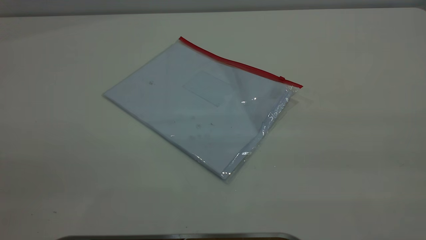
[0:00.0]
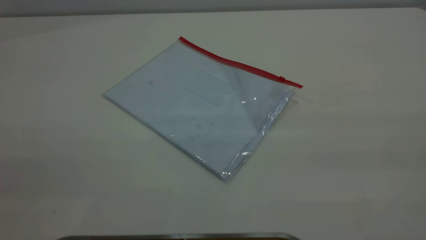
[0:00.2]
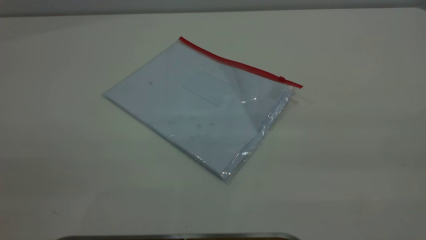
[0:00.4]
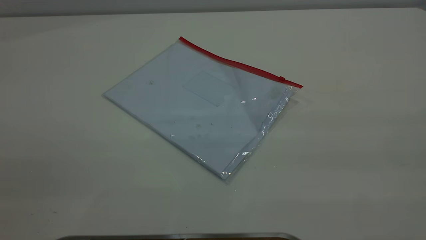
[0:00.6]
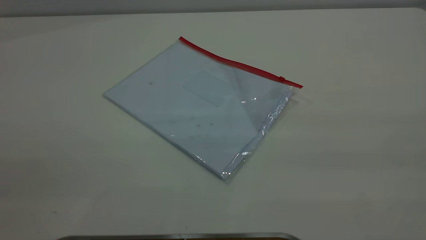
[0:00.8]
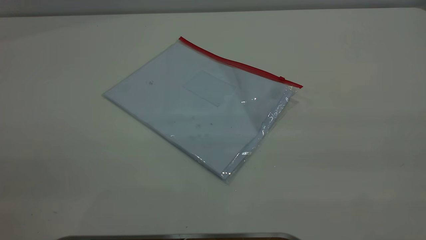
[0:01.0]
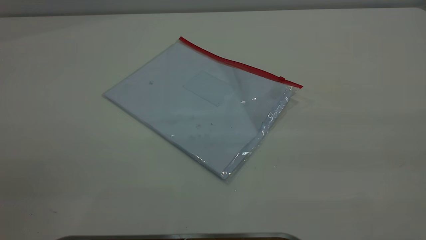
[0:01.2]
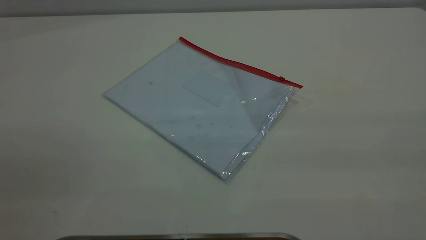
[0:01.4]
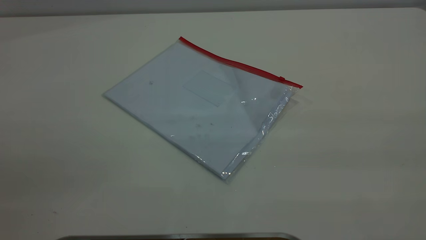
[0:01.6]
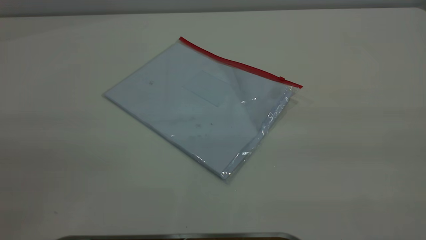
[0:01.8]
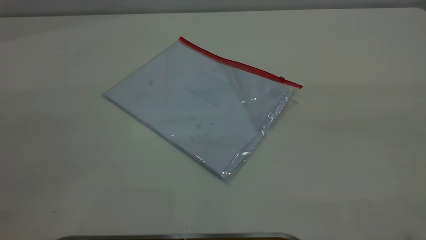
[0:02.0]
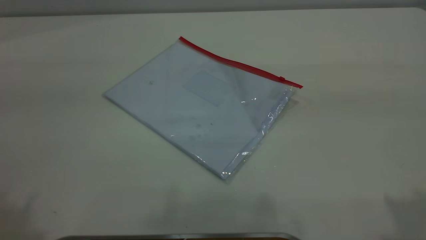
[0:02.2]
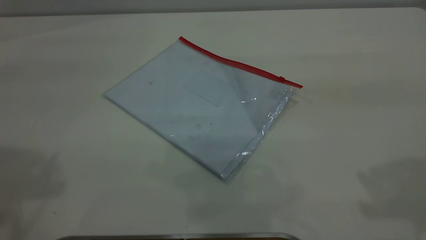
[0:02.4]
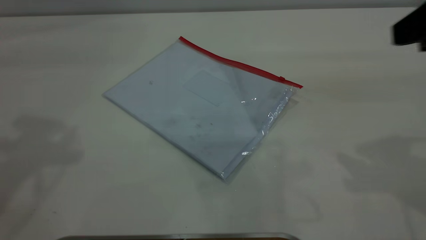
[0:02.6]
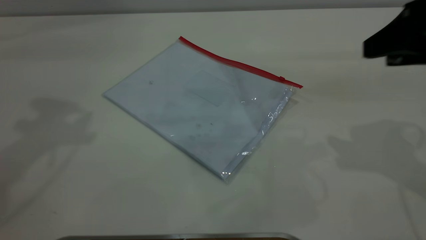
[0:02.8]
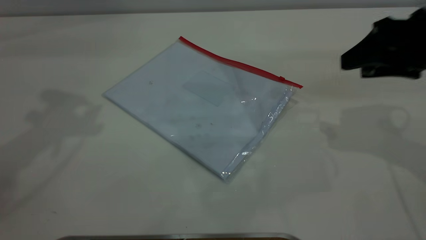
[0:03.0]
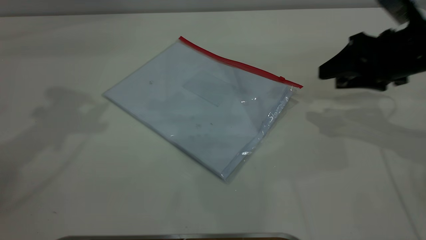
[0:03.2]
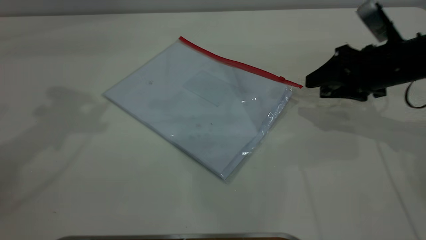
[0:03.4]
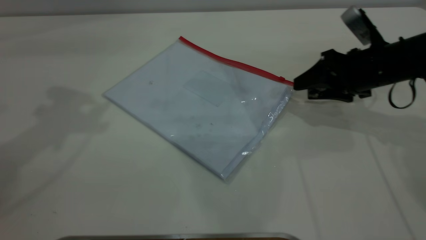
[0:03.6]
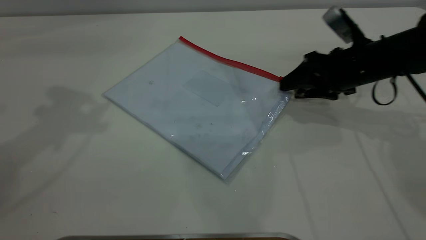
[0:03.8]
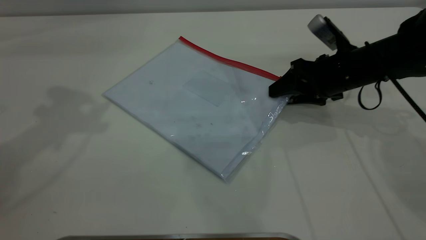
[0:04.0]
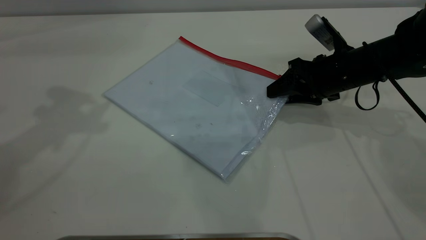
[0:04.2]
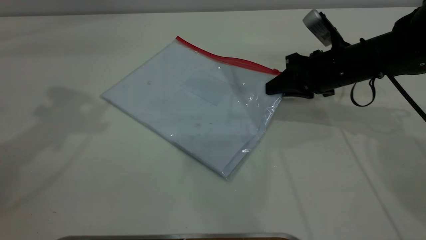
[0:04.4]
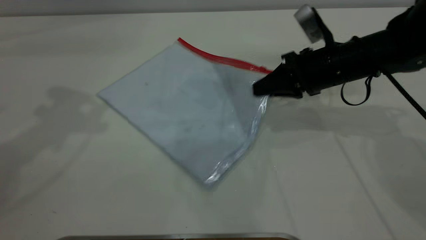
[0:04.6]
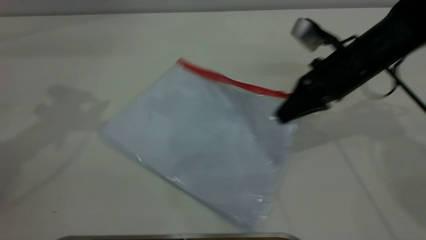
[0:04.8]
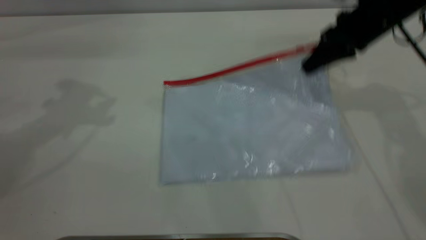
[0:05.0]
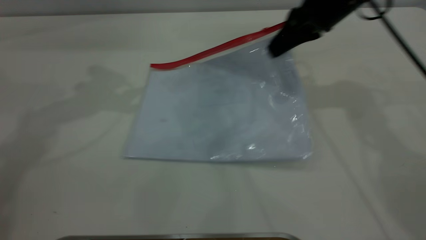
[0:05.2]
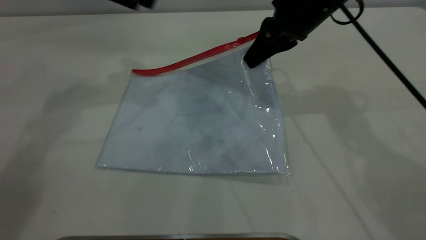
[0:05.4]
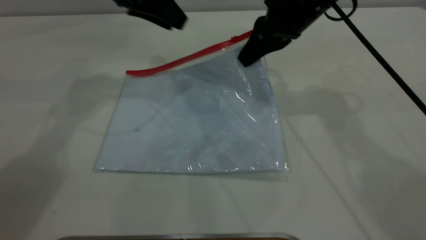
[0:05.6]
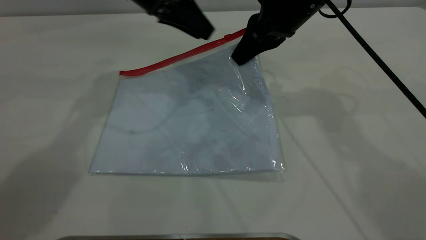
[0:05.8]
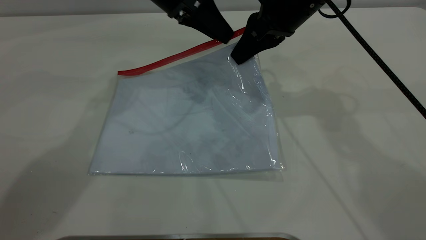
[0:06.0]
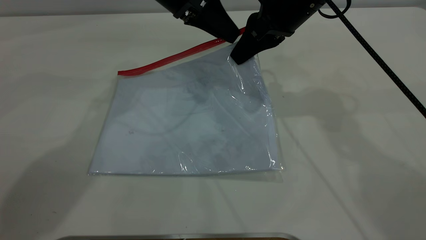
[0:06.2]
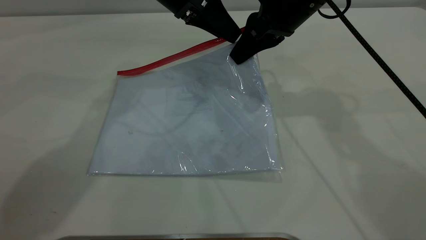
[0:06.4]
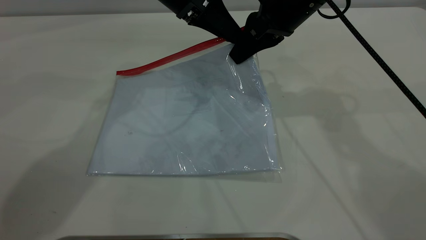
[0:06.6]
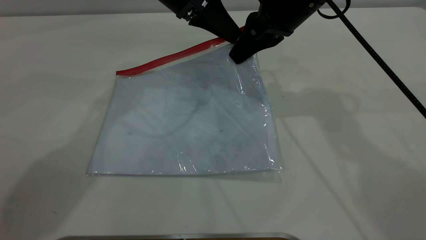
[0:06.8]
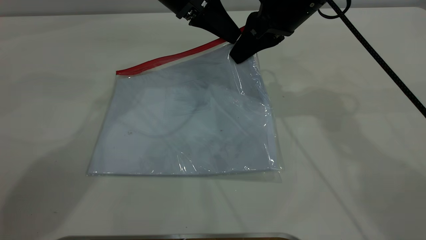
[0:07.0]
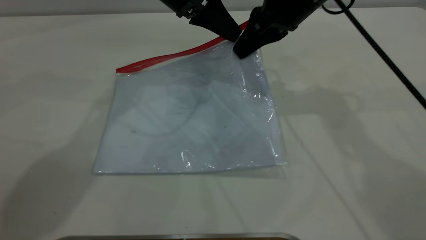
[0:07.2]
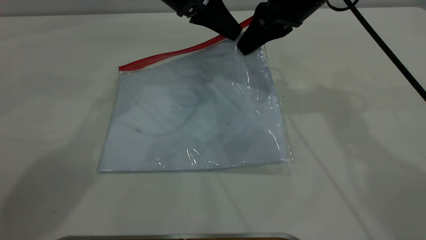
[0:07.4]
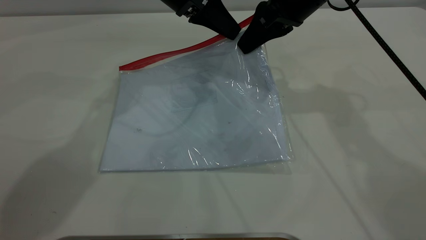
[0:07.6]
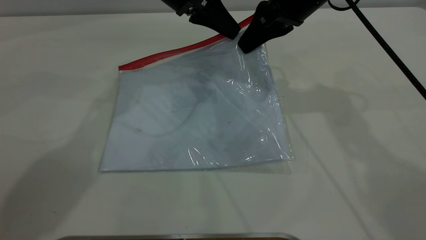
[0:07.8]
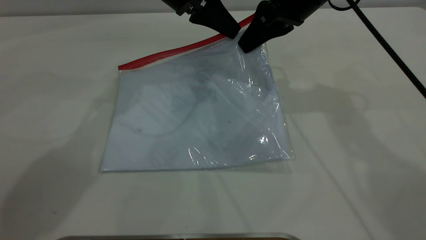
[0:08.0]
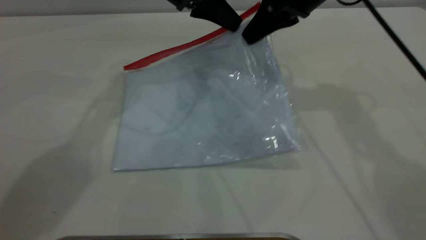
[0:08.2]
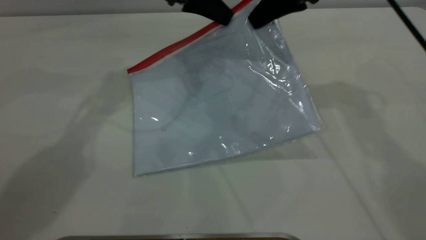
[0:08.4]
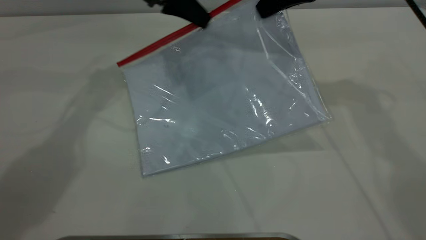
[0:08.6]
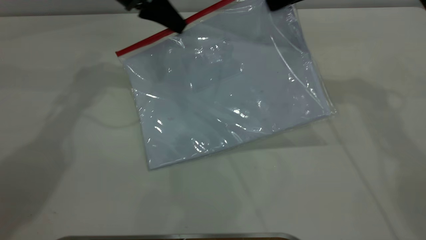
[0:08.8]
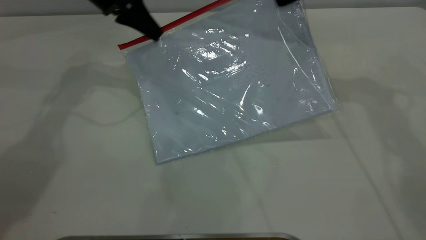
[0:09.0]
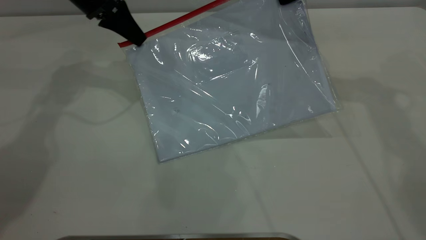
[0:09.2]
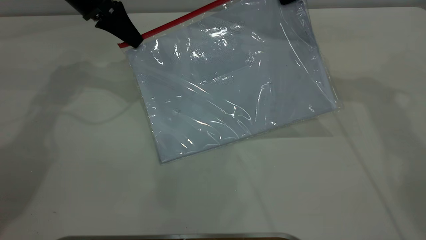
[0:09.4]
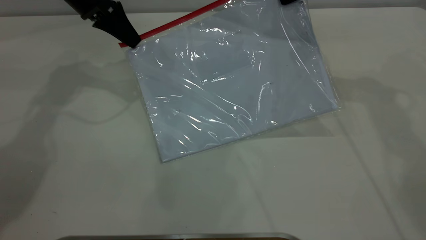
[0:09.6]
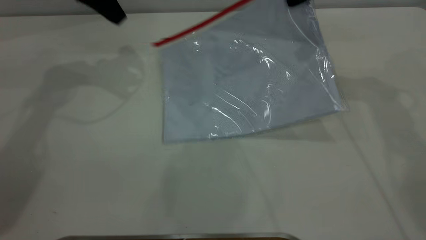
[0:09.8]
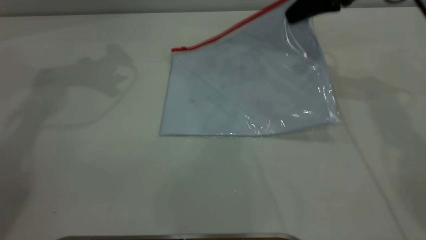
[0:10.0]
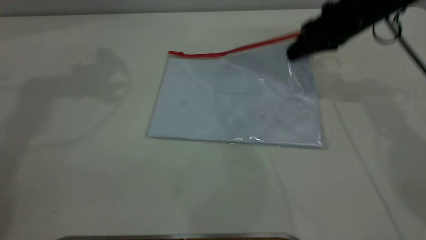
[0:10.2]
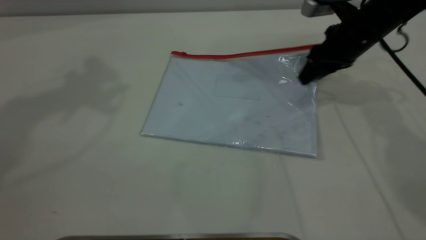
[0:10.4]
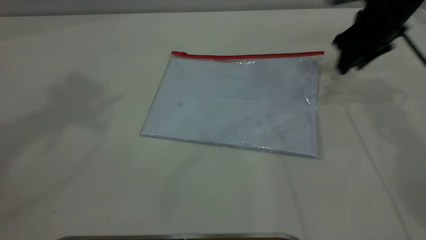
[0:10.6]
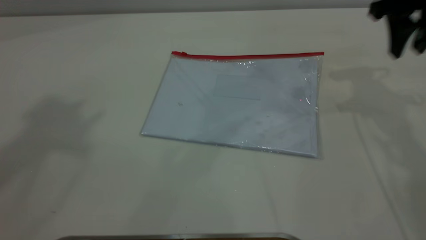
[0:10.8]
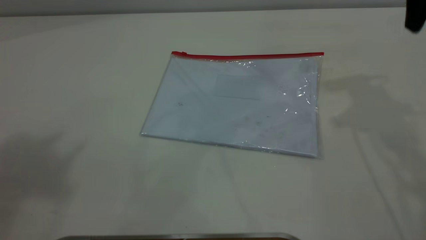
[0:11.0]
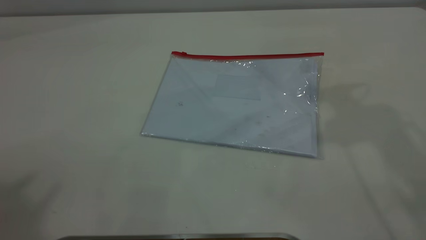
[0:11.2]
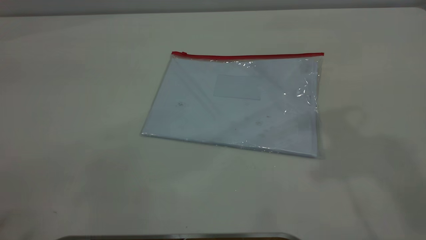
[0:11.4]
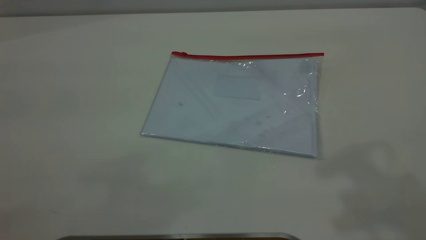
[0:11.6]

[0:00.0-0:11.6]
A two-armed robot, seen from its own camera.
Step, 0:00.0 to 0:05.4: Pick up the transparent plastic bag with the right gripper.
Step, 0:05.6 to 0:09.6: Pulling up the zipper on the transparent plastic bag with the left gripper to close it.
Step, 0:10.0 to 0:10.8: Place the transparent plastic bag.
0:00.0 to 0:01.4: Both grippers stay about where they are.
0:01.4 to 0:02.8: The right gripper moves forward and downward, some 30 cm.
0:02.8 to 0:04.4: The right gripper heads downward, forward and to the left, covering roughly 20 cm, and closes up.
0:04.4 to 0:05.8: The left gripper shifts approximately 25 cm to the right, downward and forward. The right gripper goes roughly 15 cm upward and to the left.
0:05.8 to 0:07.2: The left gripper closes up.
0:07.2 to 0:08.8: The right gripper shifts some 5 cm to the right; the left gripper moves to the left, some 10 cm.
0:08.8 to 0:10.2: The left gripper goes some 25 cm upward, and opens up. Meanwhile the right gripper shifts some 10 cm downward, and opens its fingers.
0:10.2 to 0:11.6: The right gripper heads upward and backward, covering some 40 cm; the left gripper heads backward, covering some 40 cm.

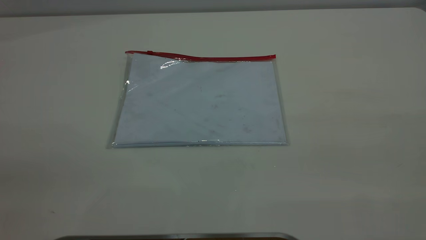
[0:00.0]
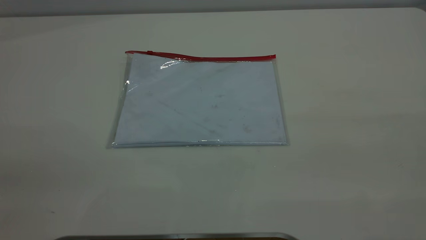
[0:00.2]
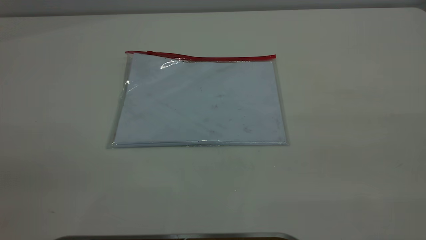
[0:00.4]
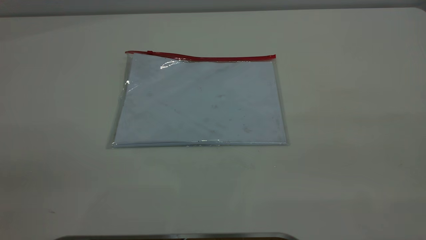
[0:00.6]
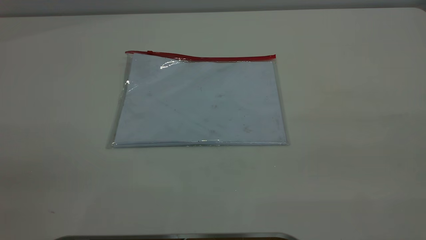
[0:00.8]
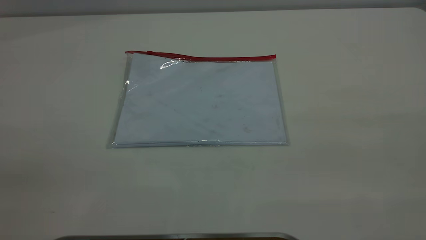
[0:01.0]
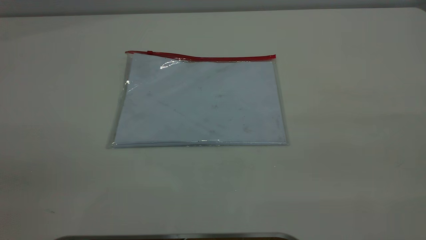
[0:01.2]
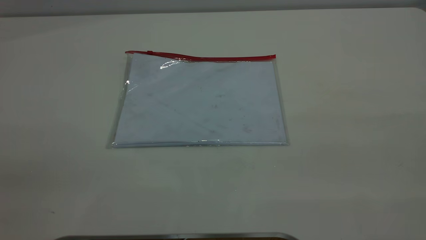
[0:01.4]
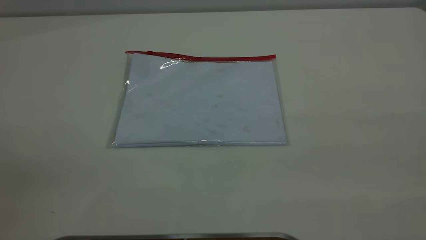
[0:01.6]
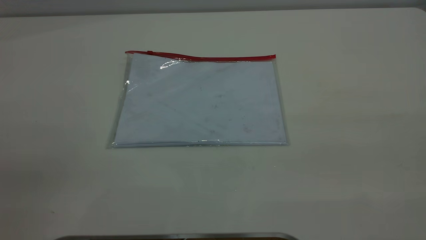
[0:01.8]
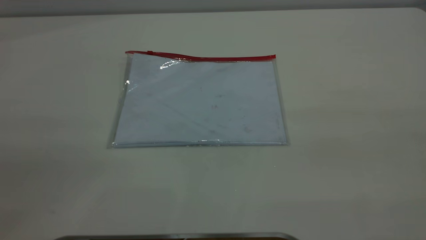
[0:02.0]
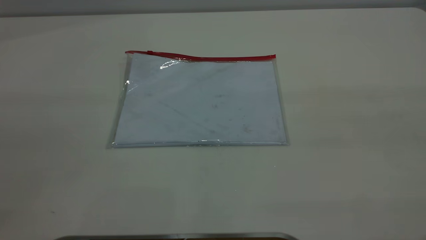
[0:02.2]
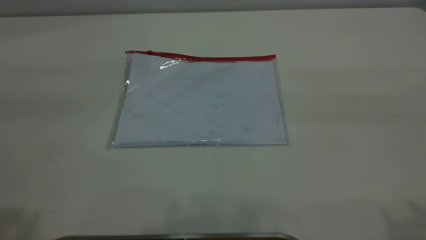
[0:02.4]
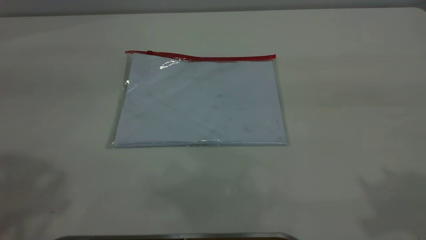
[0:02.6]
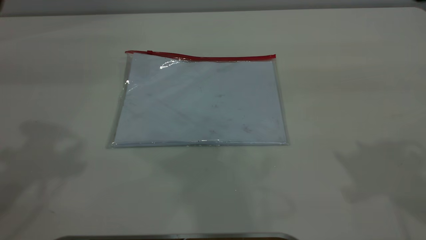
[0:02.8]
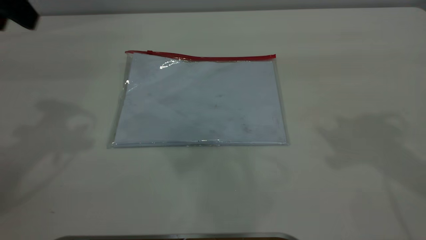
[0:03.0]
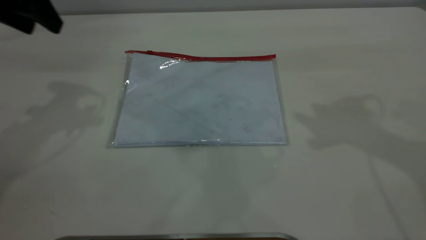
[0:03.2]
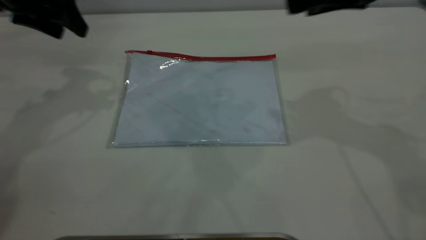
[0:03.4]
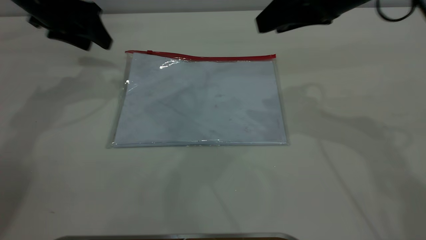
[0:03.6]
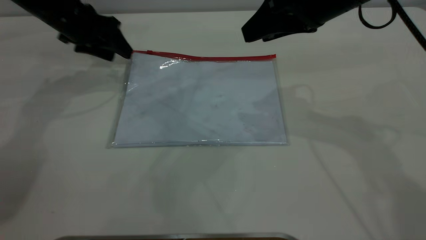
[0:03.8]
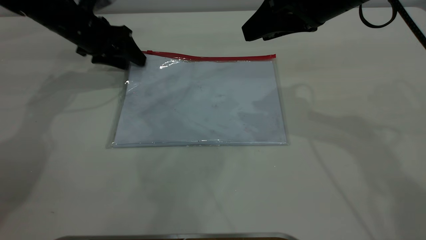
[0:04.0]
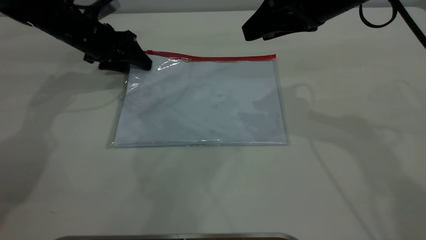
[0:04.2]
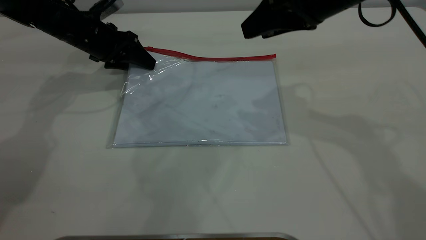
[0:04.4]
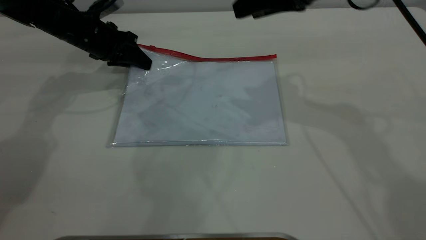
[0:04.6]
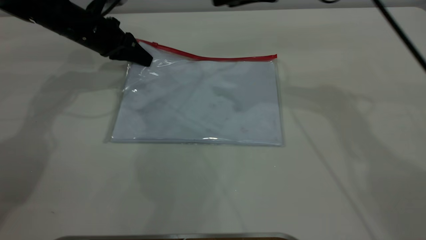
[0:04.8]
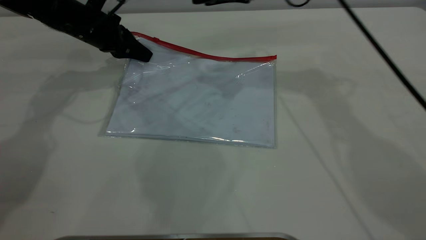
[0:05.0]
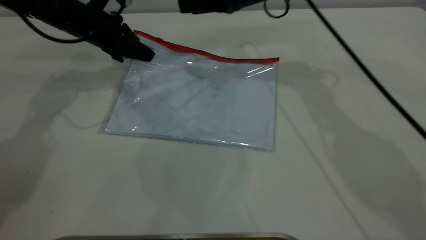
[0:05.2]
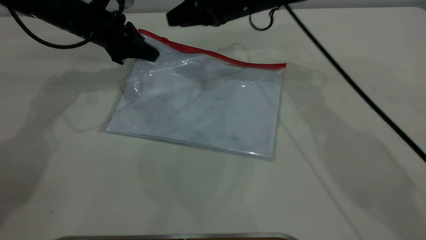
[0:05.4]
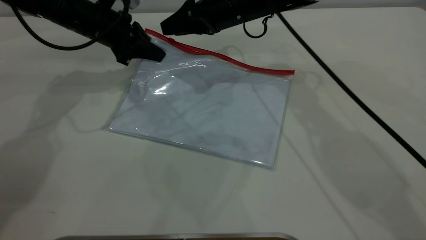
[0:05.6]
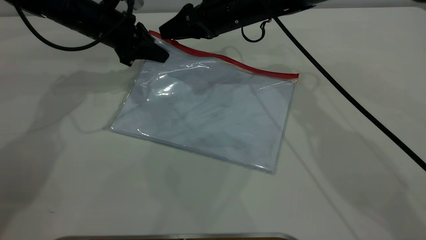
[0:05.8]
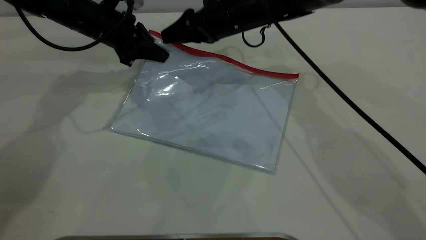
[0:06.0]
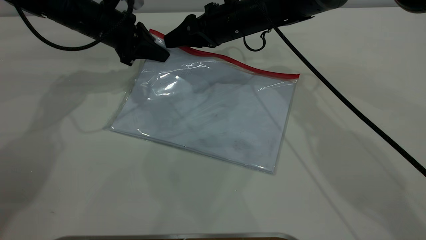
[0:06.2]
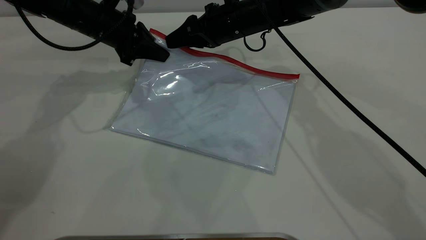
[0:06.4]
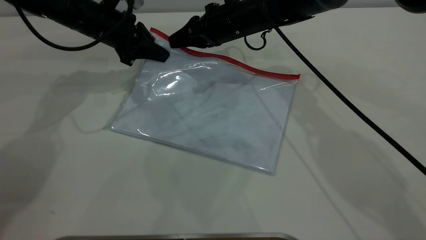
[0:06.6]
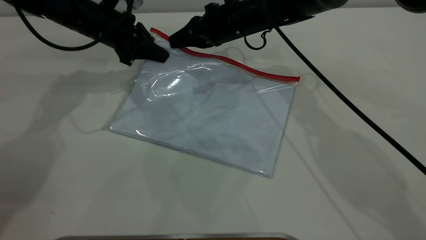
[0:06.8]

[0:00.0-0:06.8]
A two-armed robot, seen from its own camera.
Step, 0:00.0 to 0:05.0: Pick up the transparent plastic bag with the left gripper.
0:00.0 to 0:01.4: Both grippers stay put.
0:02.8 to 0:04.0: The left gripper heads downward and forward, covering roughly 30 cm. Meanwhile the right gripper moves forward, to the left and downward, some 20 cm.
0:04.0 to 0:05.4: The left gripper closes up. Meanwhile the right gripper is displaced forward, to the left and downward by approximately 20 cm.
0:05.4 to 0:06.8: The right gripper closes up.
